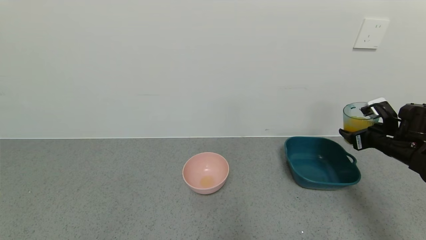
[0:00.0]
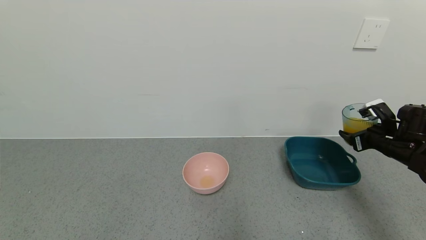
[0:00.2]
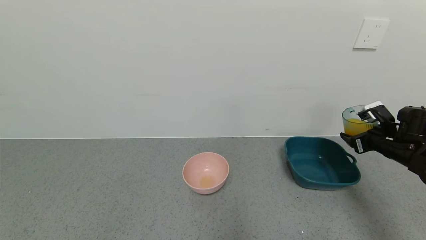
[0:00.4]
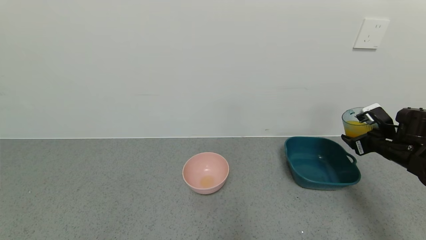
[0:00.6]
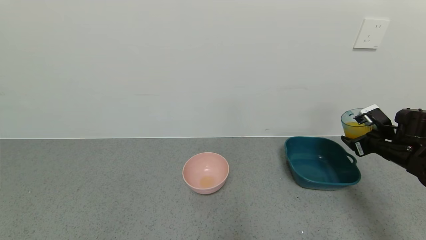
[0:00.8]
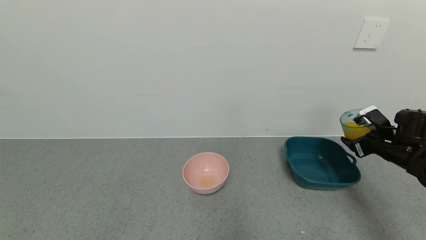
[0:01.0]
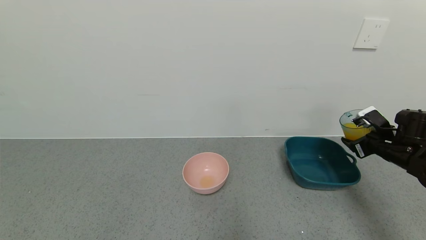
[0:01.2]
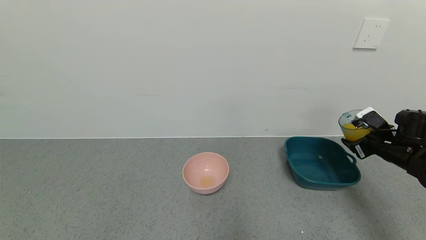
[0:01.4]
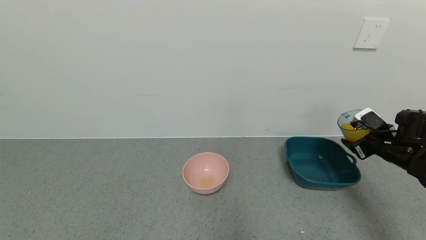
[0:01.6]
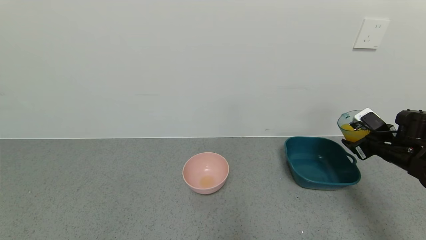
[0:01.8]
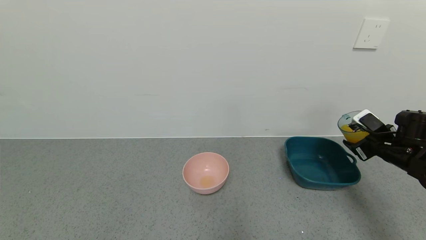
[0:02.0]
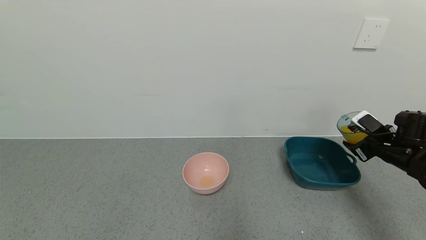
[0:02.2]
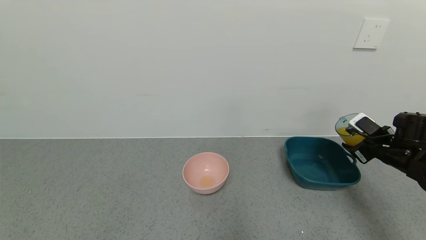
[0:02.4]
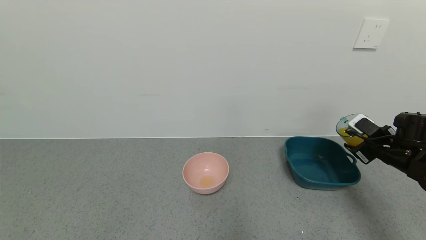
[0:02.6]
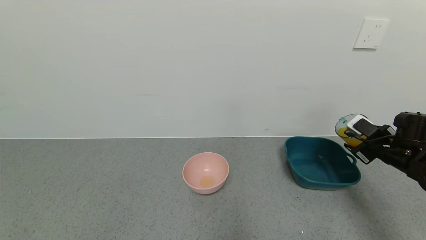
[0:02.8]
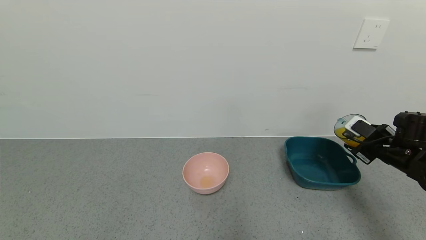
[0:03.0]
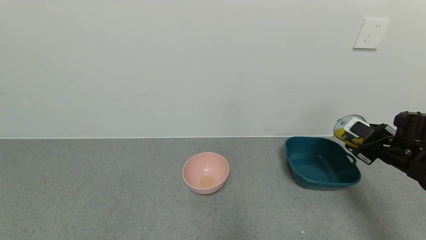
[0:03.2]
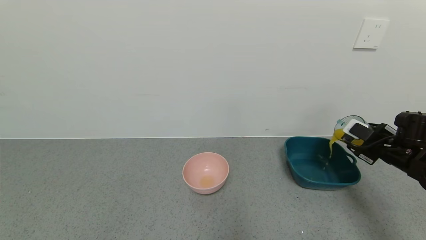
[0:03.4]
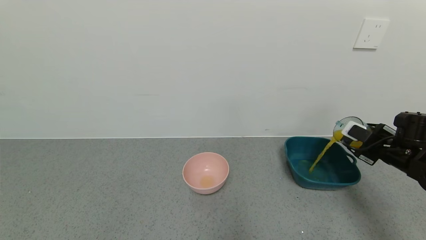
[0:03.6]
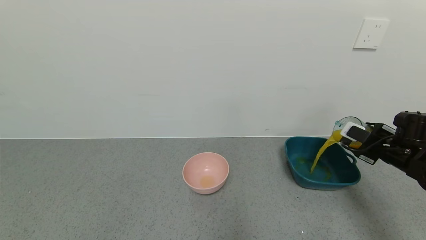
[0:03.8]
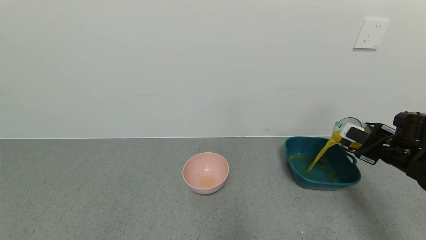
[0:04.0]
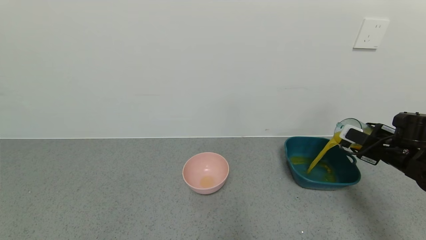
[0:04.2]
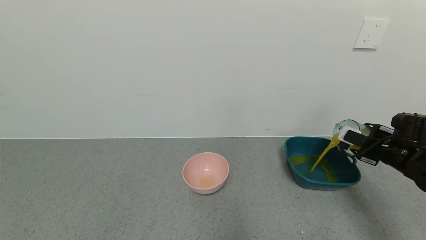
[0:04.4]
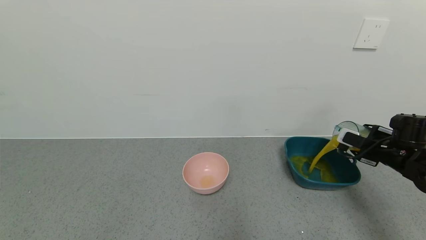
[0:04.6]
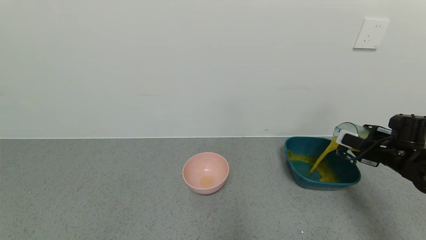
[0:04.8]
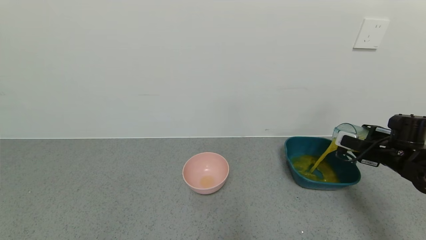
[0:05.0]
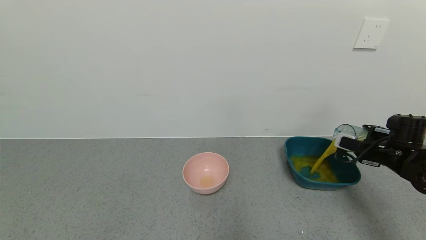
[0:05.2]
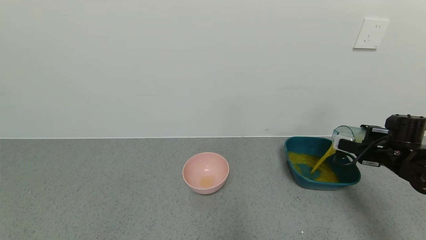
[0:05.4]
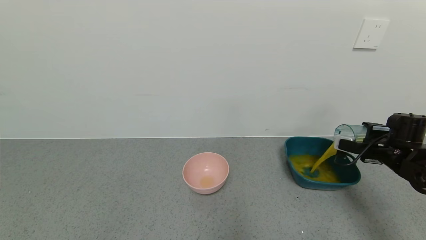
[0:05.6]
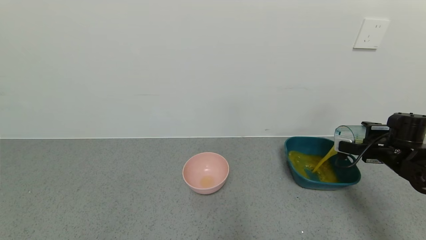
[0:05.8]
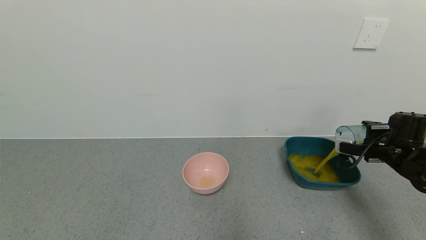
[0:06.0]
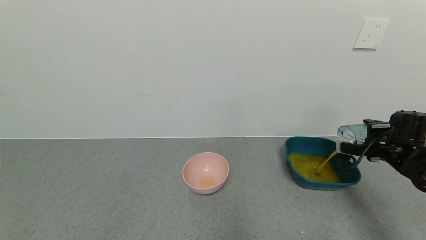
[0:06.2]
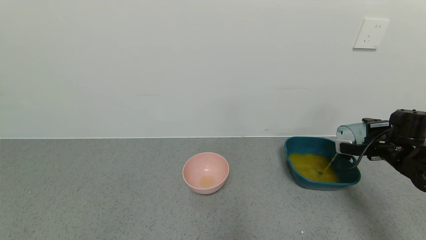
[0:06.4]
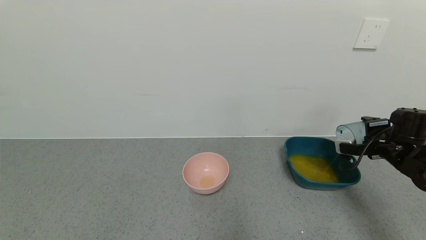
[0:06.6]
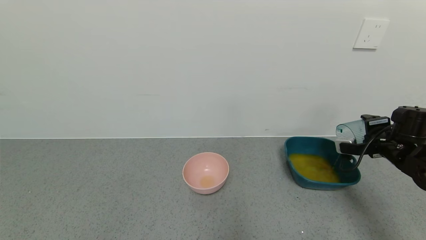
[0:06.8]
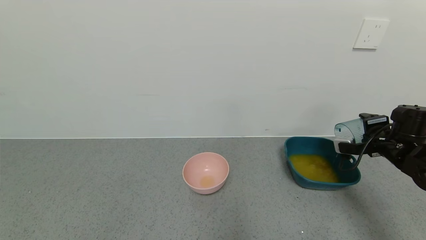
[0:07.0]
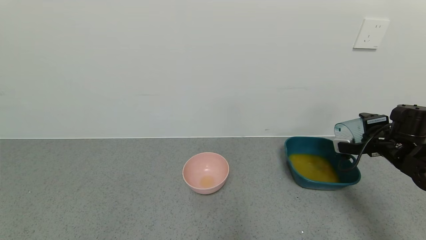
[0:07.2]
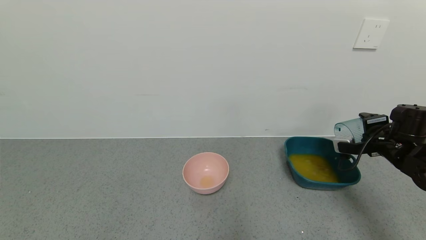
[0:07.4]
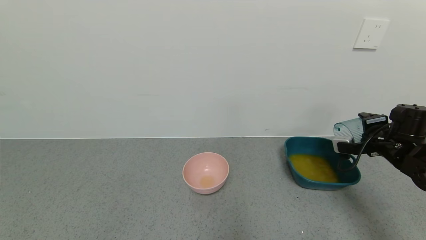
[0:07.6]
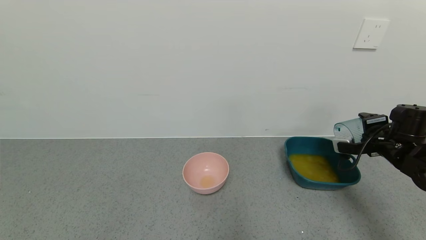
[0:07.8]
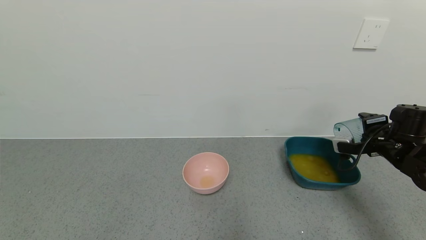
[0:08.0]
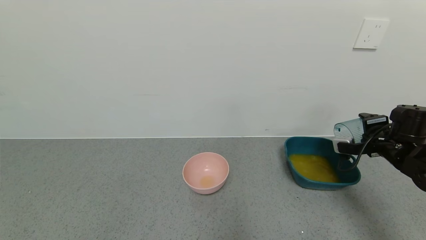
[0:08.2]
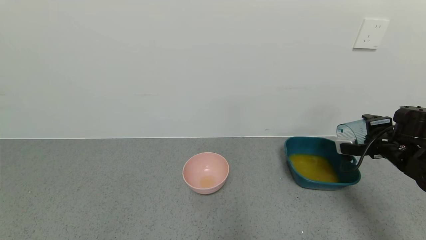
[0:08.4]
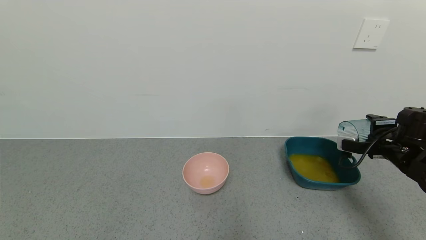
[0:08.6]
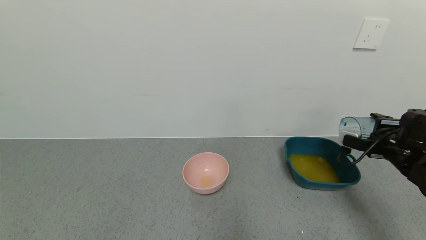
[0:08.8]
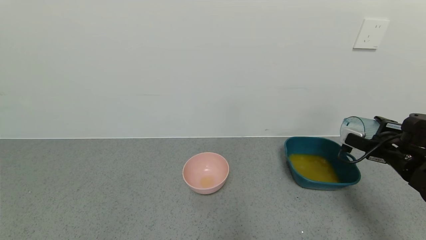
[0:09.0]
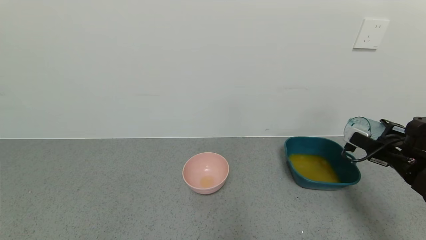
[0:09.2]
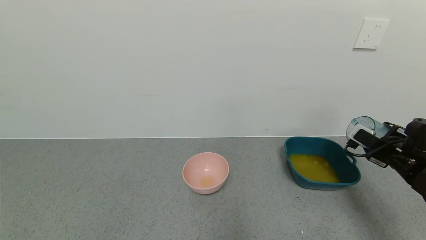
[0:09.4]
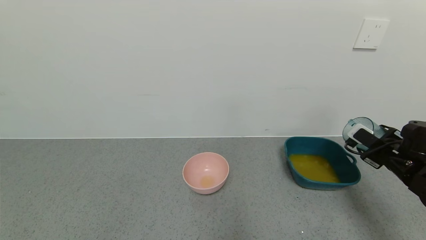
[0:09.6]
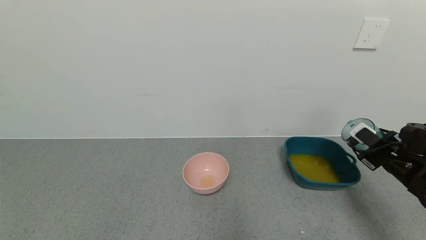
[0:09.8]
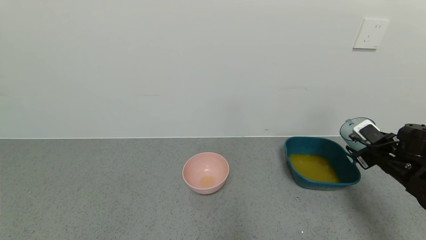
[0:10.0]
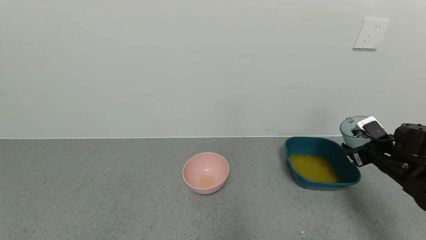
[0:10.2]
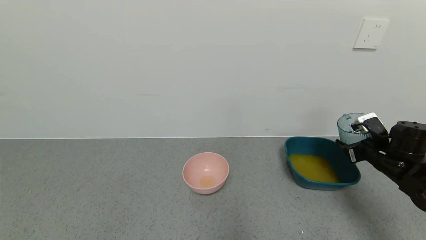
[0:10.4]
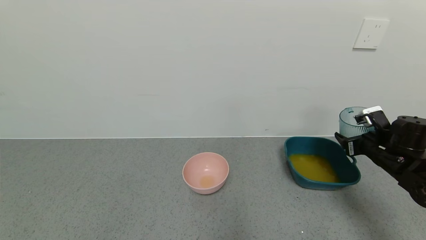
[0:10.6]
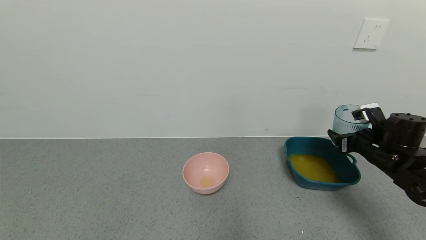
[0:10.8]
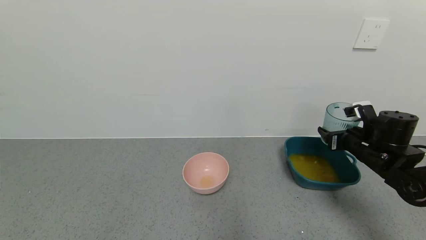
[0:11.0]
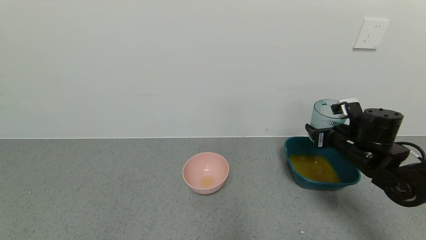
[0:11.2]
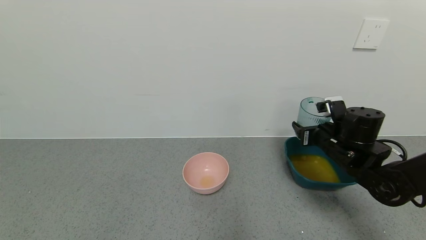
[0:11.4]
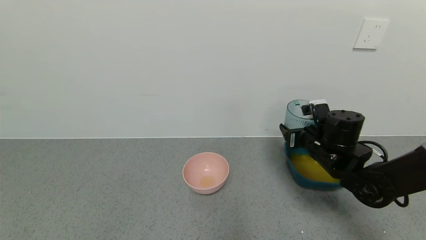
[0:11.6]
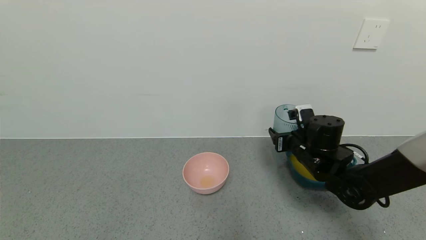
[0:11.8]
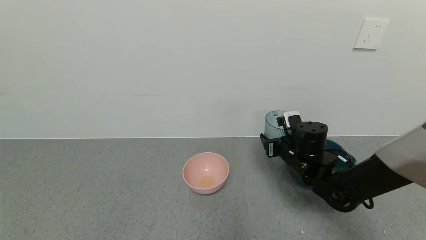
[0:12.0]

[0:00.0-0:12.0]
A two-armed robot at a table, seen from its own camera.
Task of the whole recording: use a gripper to pick up the cup and pour the liquid into a bowl or tray.
Step, 0:01.8 to 0:09.2: Pour the orange juice into the blue basin with right gripper.
0:00.0 to 0:01.6: The grippers move only a little.
0:01.6 to 0:03.0: The grippers stay close to where they were, moving slightly.
0:03.0 to 0:04.4: The grippers move only a little.
0:06.0 to 0:07.6: The grippers move only a little.
0:10.4 to 0:12.0: The right gripper moves to the left, some 20 cm.

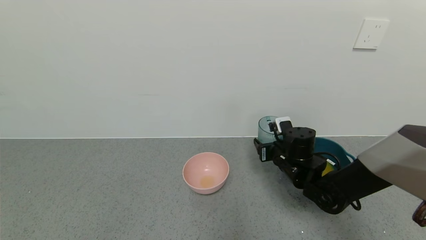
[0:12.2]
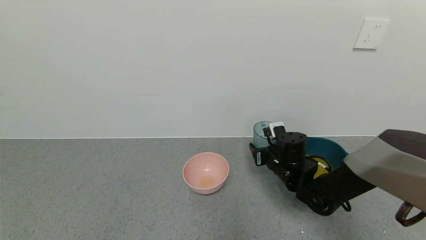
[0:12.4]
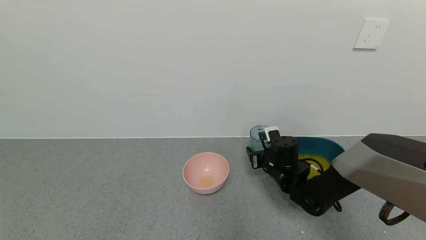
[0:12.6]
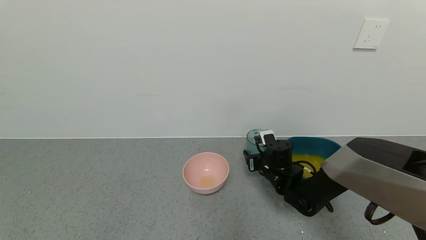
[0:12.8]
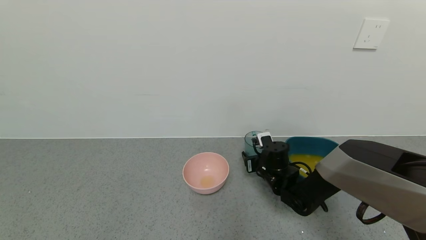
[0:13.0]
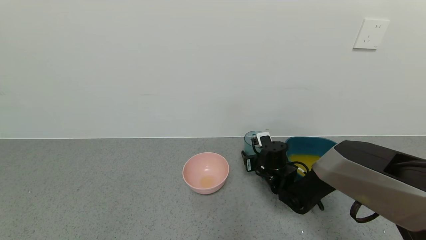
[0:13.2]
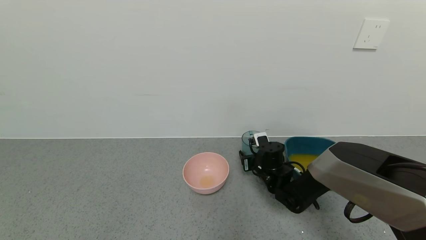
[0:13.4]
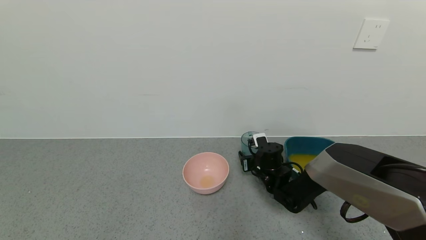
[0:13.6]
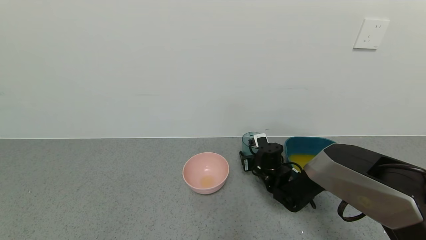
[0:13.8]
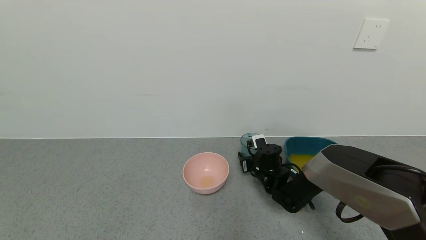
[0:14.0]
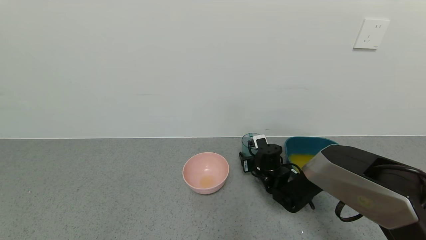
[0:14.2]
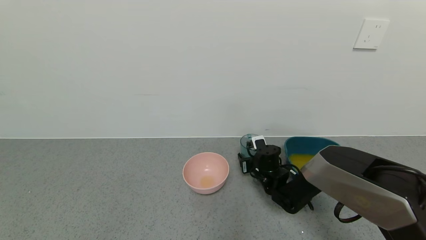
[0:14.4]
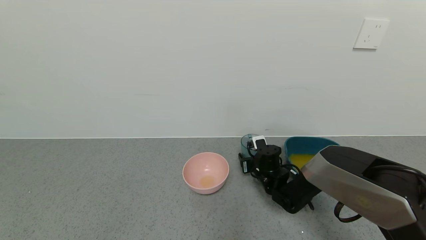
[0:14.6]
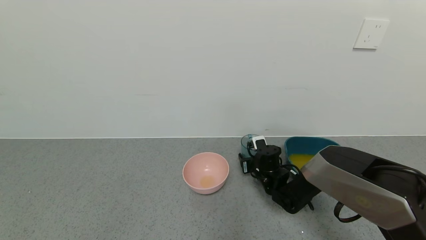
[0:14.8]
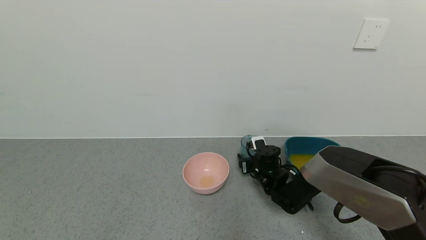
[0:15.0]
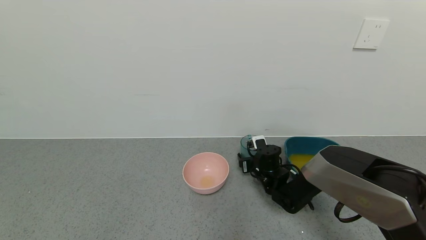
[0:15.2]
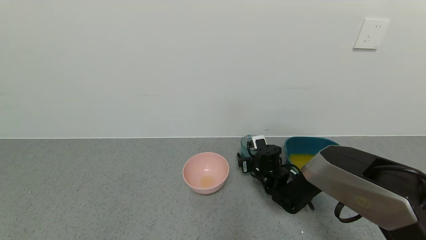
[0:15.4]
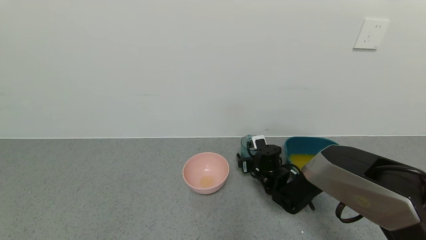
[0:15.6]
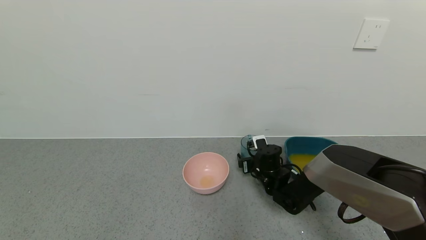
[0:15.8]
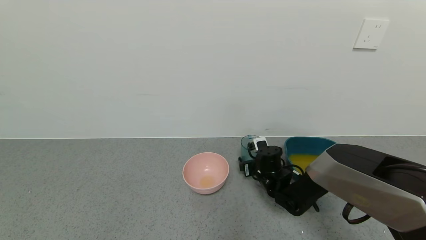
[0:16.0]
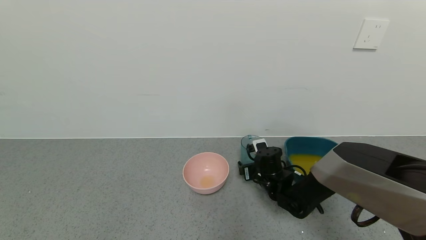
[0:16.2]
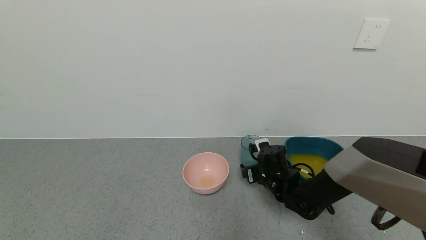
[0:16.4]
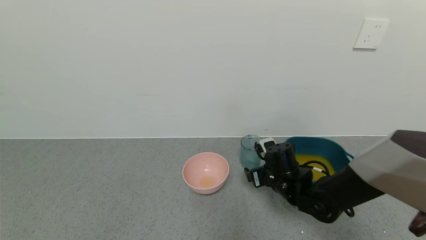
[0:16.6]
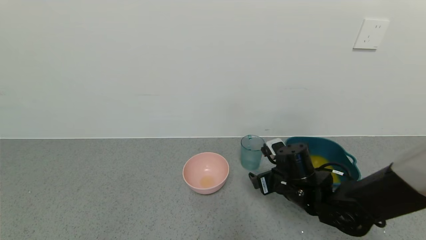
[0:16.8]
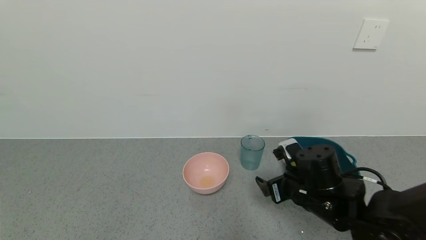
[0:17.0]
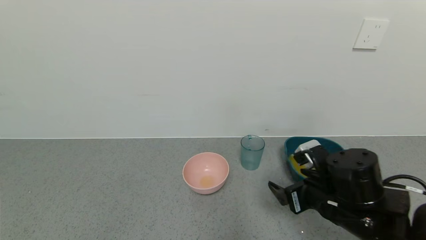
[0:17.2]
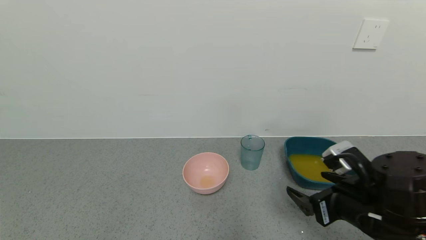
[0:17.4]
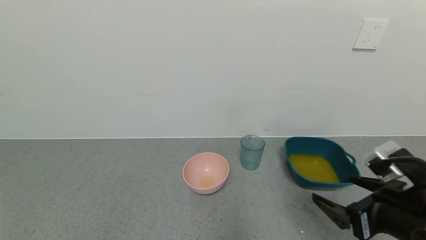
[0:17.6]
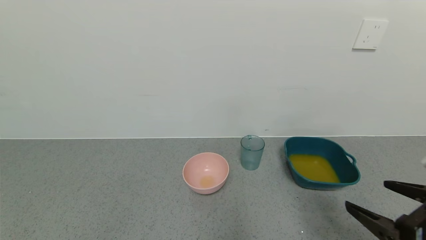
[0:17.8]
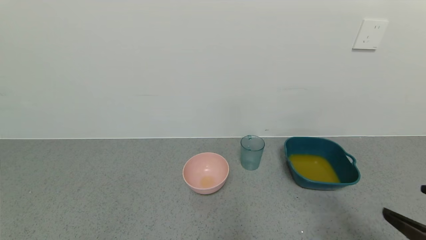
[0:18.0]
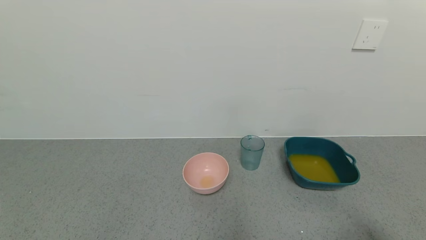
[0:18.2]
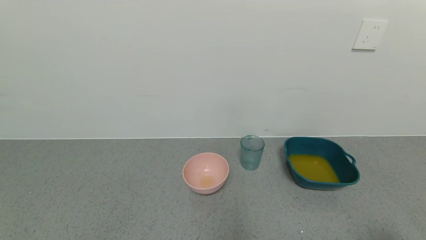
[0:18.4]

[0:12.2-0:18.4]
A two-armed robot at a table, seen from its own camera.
Task of the whole recording: use a gripper to pick up the cup and pour the liquid into a bowl or tray.
Step, 0:12.2 to 0:15.8: Place blue cup with orange juice on the table with right gripper.
0:12.2 to 0:13.8: The right gripper heads downward, covering some 10 cm.
0:13.8 to 0:15.4: The right gripper opens.
0:15.4 to 0:16.8: The right gripper is displaced backward and upward by about 15 cm.
0:16.8 to 0:18.4: The right gripper travels backward, to the right and upward by roughly 40 cm.
